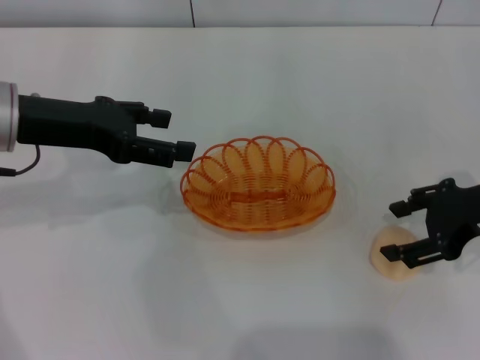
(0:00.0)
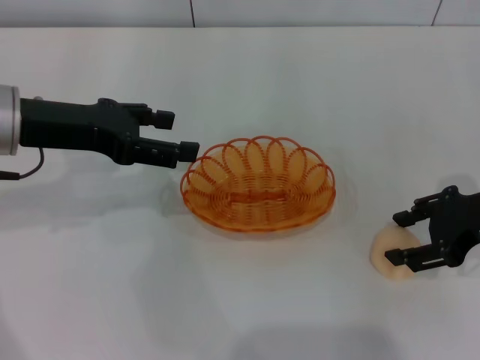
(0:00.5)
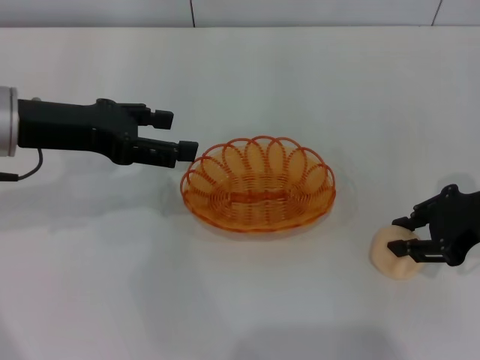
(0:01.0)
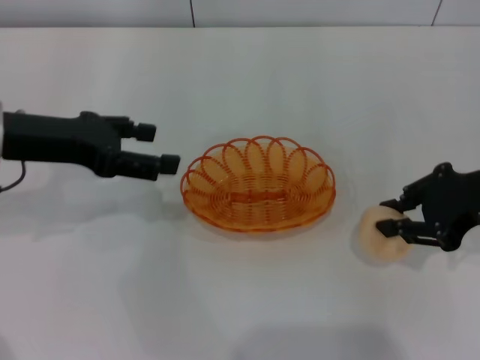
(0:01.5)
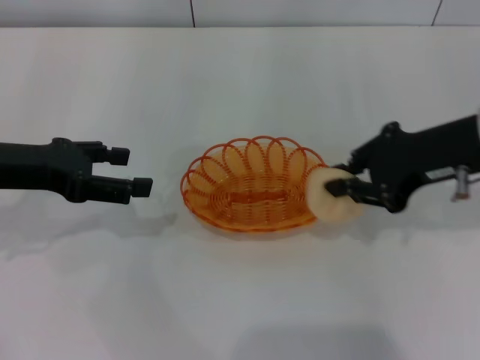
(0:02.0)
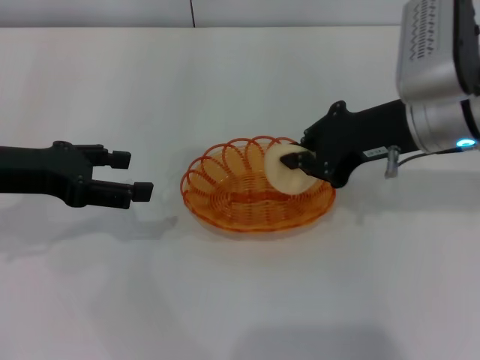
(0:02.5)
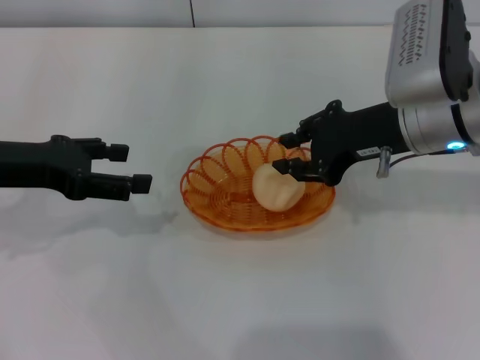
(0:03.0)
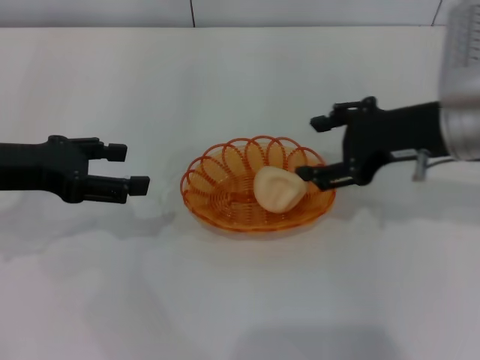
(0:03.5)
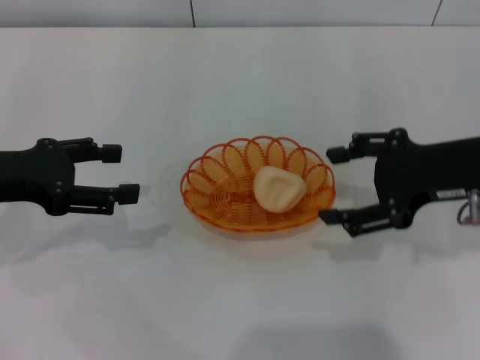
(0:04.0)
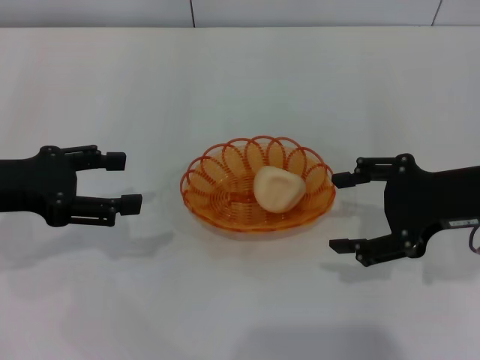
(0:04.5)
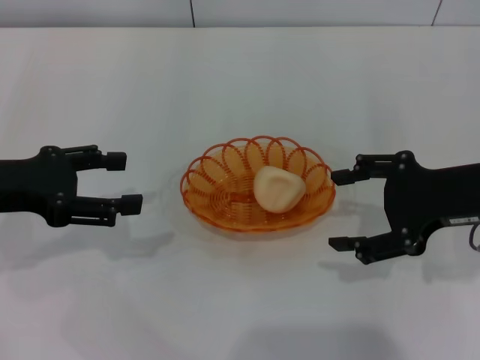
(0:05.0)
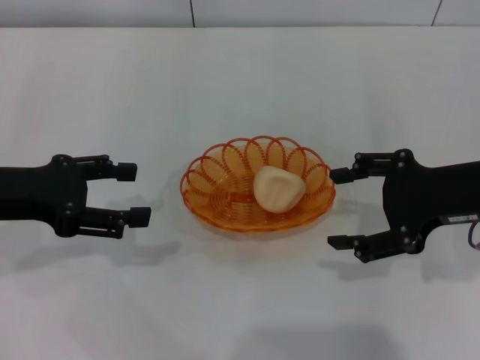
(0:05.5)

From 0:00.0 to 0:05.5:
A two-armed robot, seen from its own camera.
Step, from 0:00.0 to 0:01.5: Pick up the egg yolk pastry with the right gripper.
Step, from 0:02.0 to 0:03.5: Place the egg yolk pastry into the basket with the right gripper.
From 0:00.0 to 0:02.0: The left gripper moves roughly 5 cm. Meanwhile the right gripper travels to the left and upward by some 5 cm, and closes up.
From 0:02.0 to 0:03.5: The right gripper opens up.
From 0:03.5 to 0:05.5: The right gripper moves approximately 5 cm.
